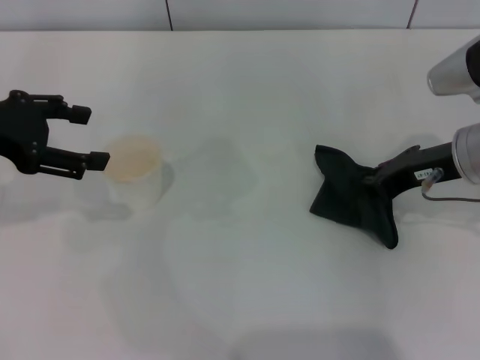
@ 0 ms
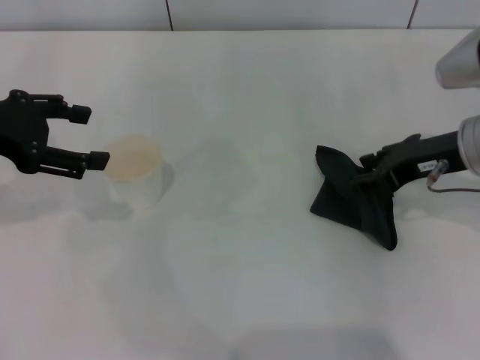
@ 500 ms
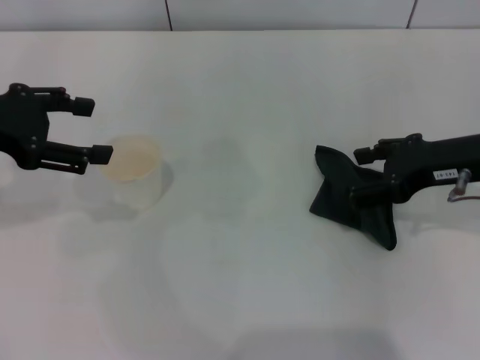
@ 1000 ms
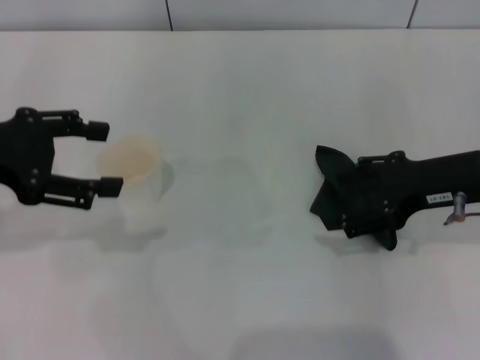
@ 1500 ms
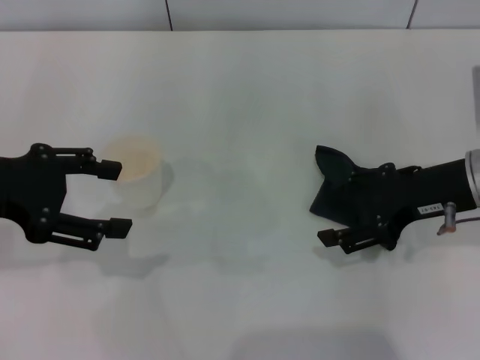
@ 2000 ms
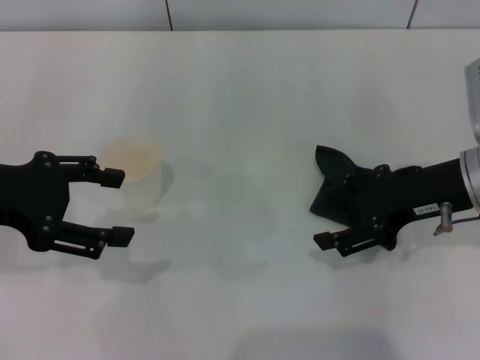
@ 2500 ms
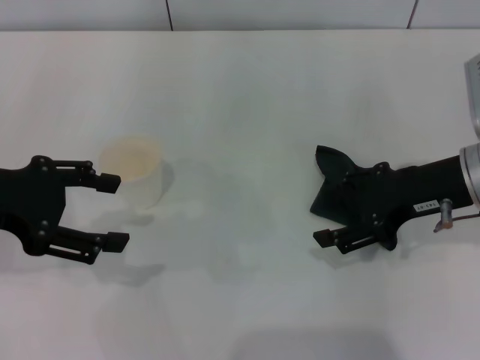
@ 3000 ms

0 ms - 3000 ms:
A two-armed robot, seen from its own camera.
Step, 0 ms - 1500 ms: Place the rag on the table with the right gripper.
0 ms - 1500 ms: The right gripper opens its fingers.
1500 ms - 3000 ms: There are only small adjustments of the grippers.
